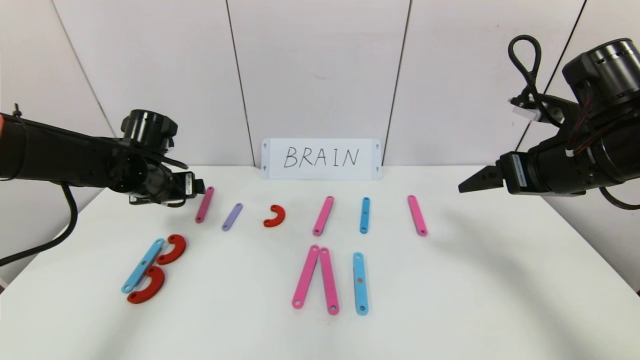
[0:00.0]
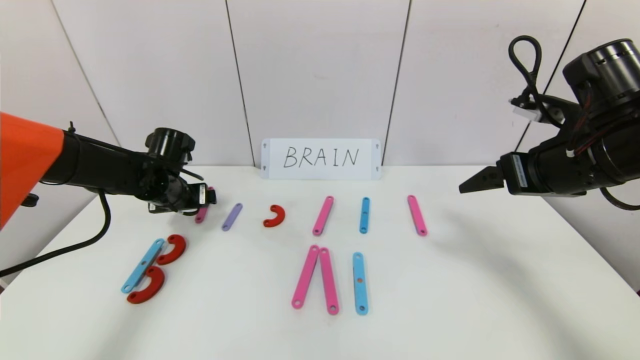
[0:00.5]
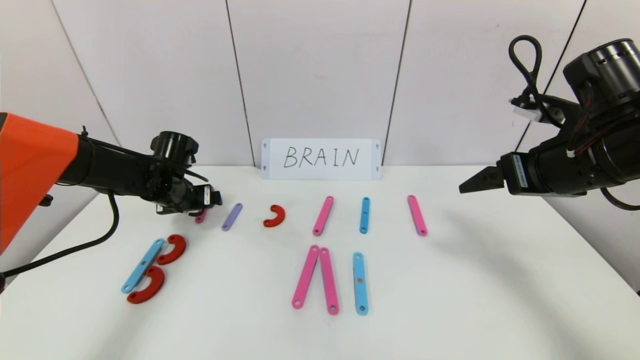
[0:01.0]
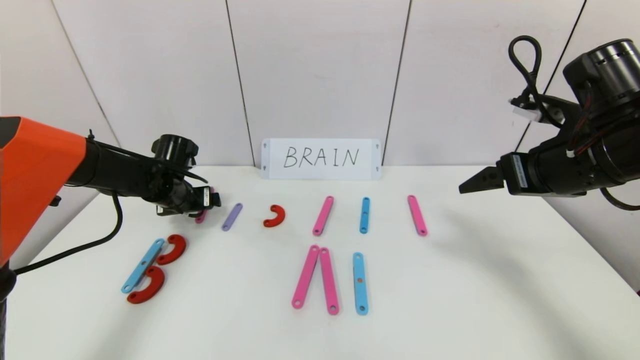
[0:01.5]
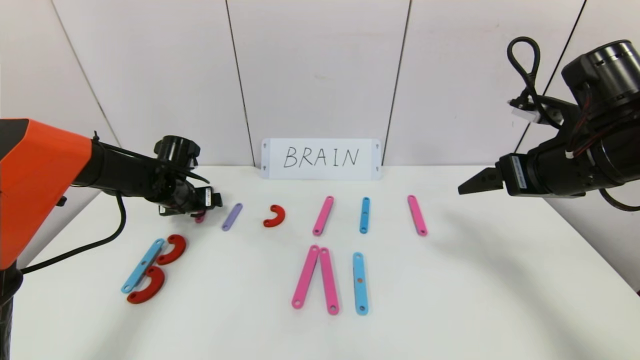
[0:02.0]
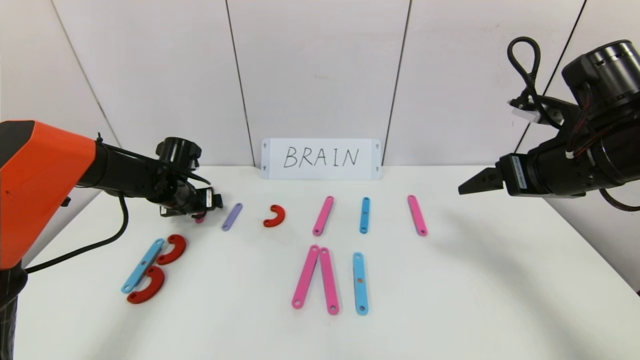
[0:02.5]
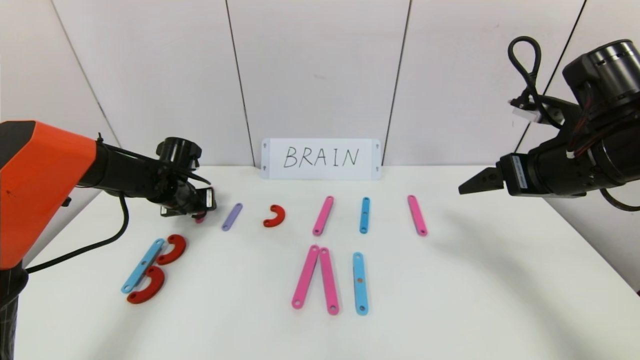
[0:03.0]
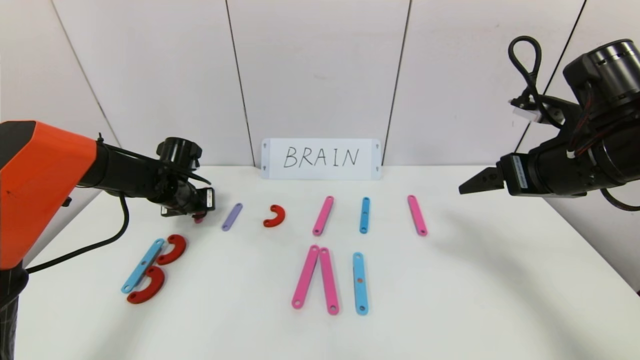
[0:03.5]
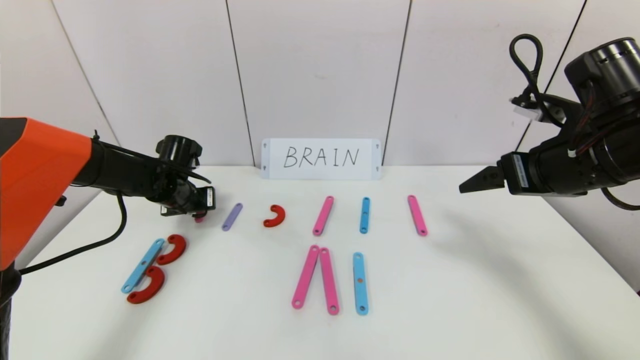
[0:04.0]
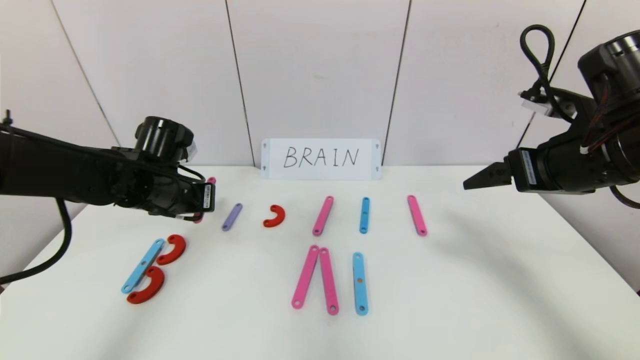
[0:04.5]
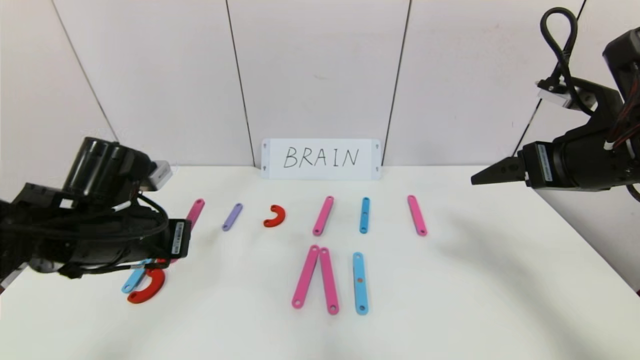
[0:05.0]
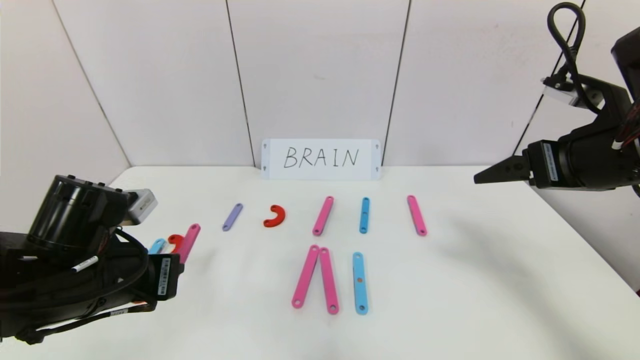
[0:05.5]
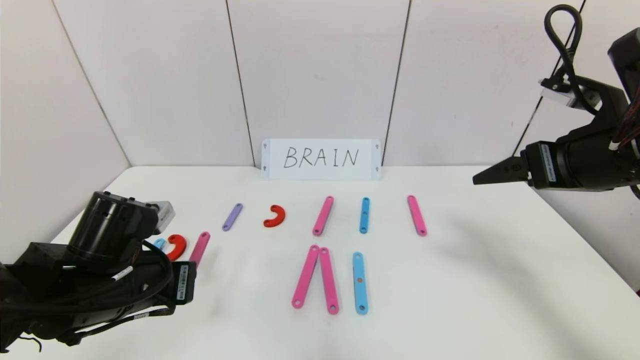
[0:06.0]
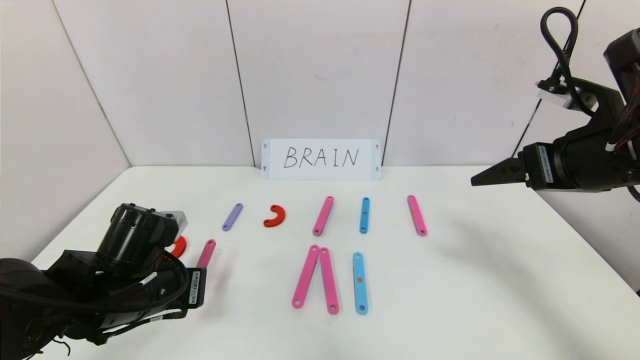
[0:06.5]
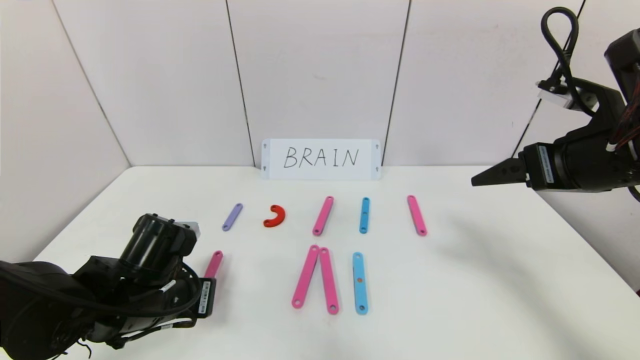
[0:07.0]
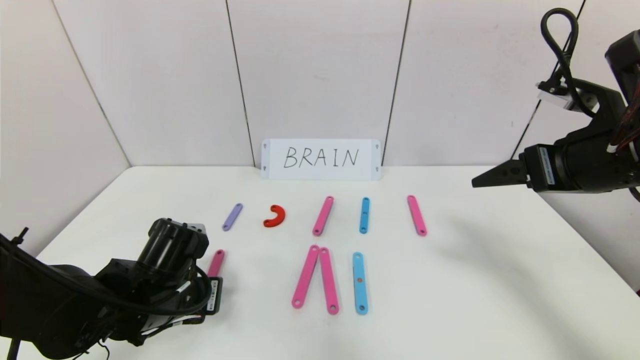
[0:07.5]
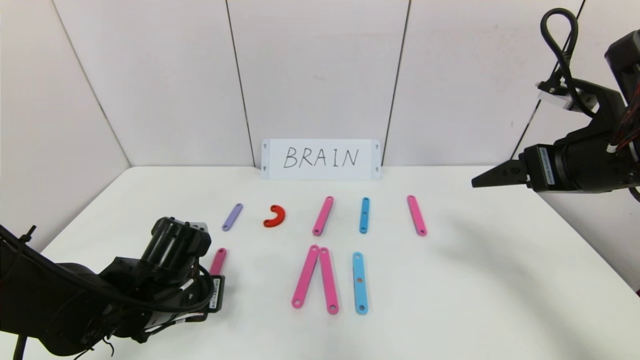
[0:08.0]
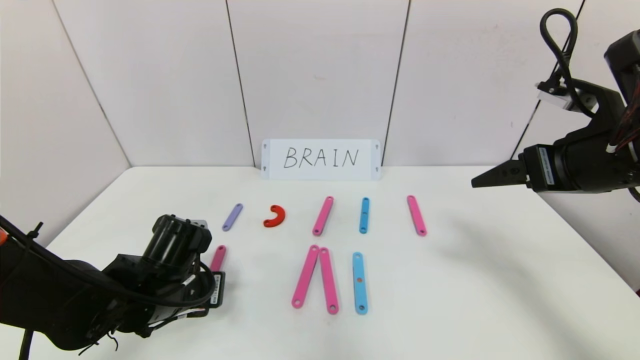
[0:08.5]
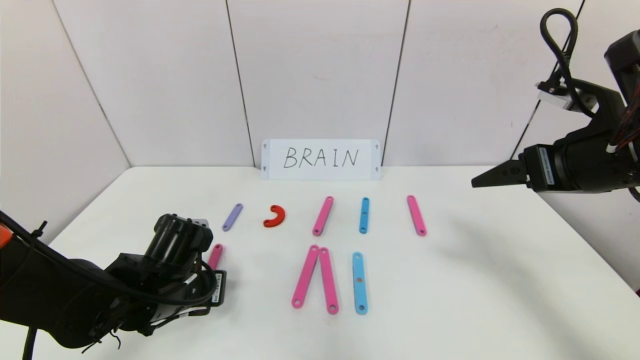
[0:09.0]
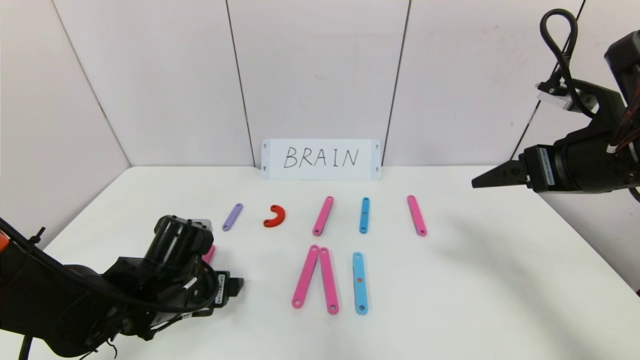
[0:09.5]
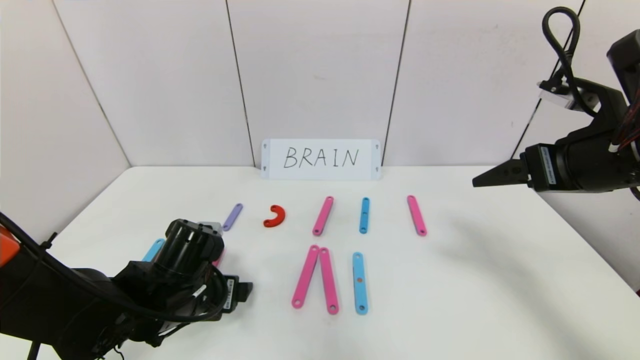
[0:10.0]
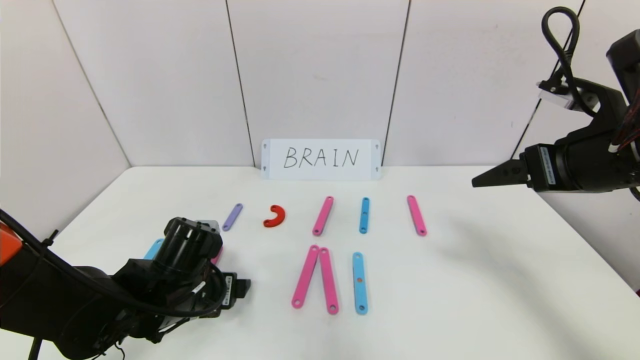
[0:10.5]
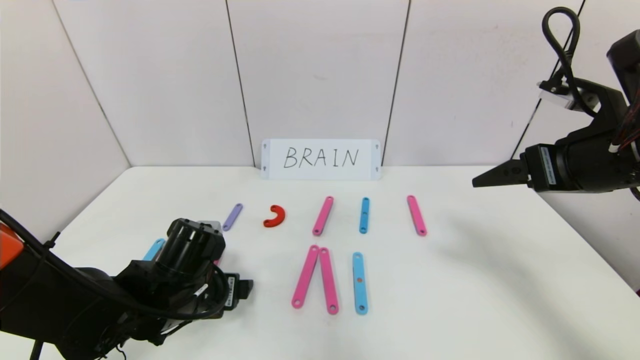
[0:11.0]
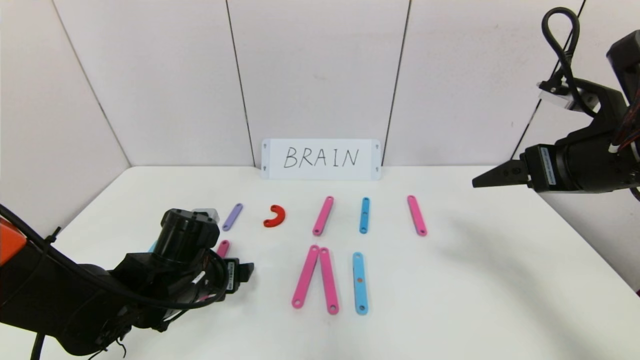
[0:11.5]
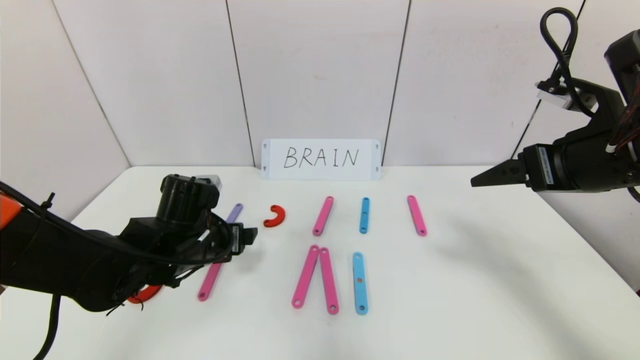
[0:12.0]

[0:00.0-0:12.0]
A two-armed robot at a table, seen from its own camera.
Task of the whole recording: rearrange the word baai as brain.
0:00.0 to 0:02.0: The left gripper is displaced downward and forward by about 10 cm.
0:02.0 to 0:04.0: The left gripper closes its fingers.
0:04.0 to 0:06.0: The left gripper goes roughly 20 cm backward.
0:06.0 to 0:08.0: The left gripper goes some 5 cm downward.
0:08.0 to 0:10.0: The left gripper opens its fingers.
0:10.0 to 0:12.0: The left gripper travels forward by about 5 cm.

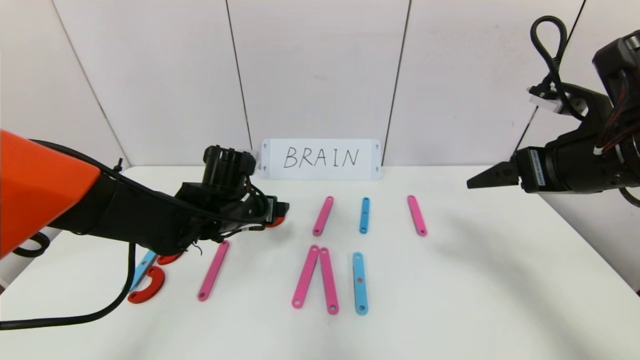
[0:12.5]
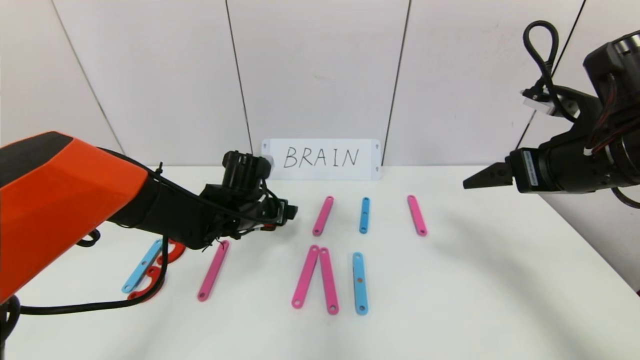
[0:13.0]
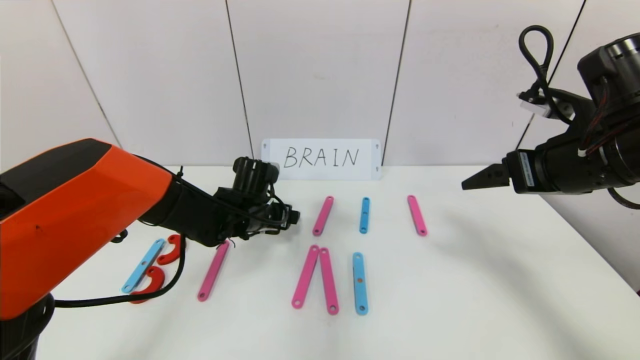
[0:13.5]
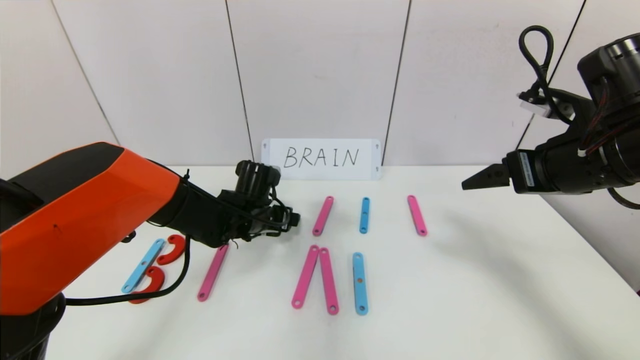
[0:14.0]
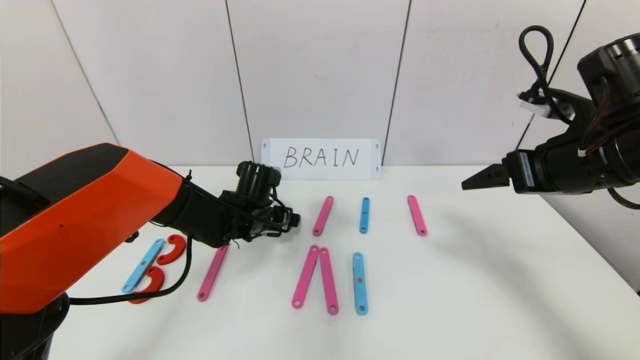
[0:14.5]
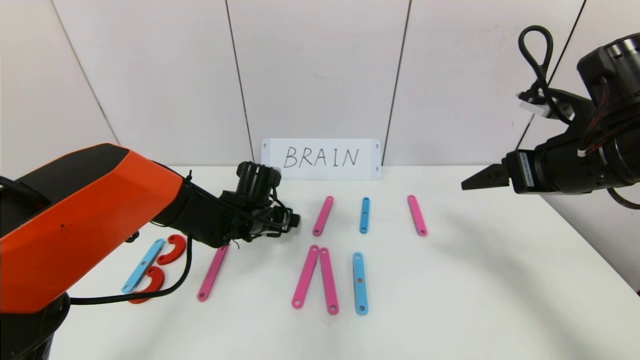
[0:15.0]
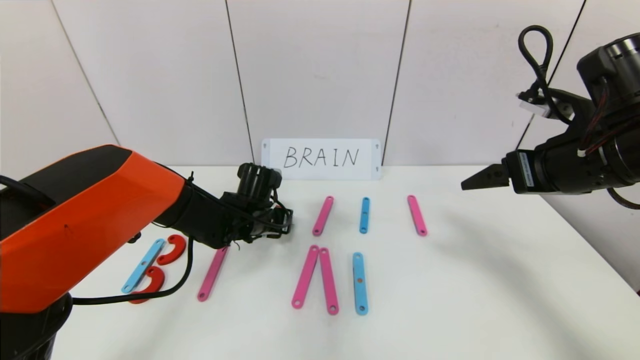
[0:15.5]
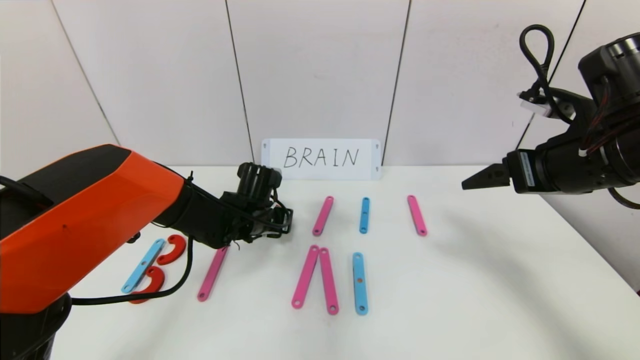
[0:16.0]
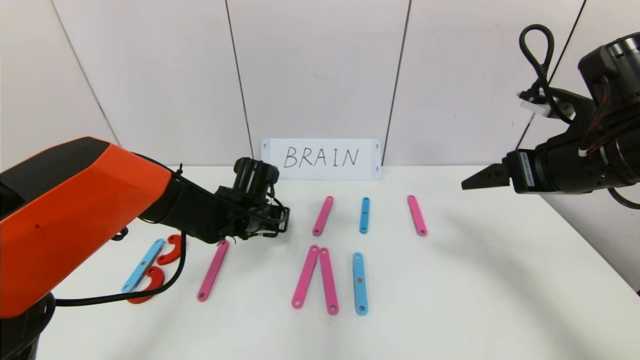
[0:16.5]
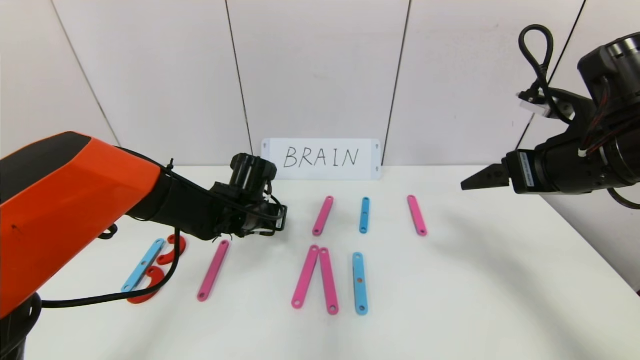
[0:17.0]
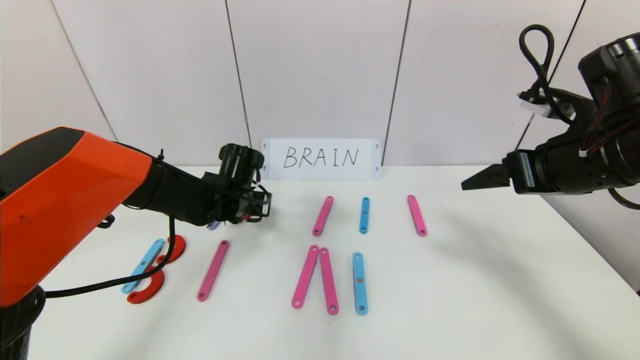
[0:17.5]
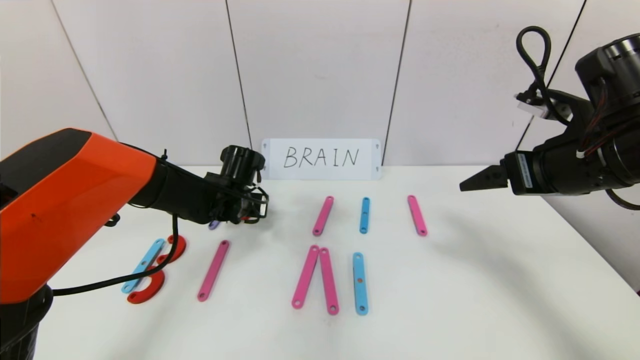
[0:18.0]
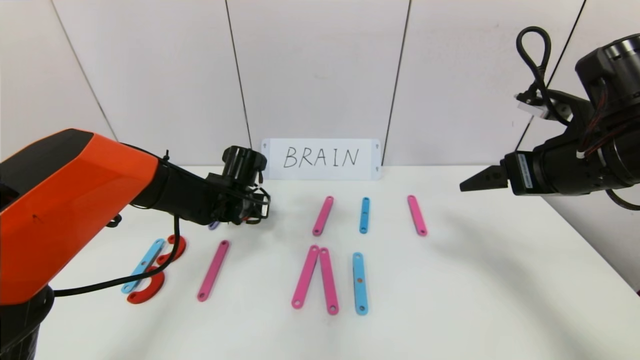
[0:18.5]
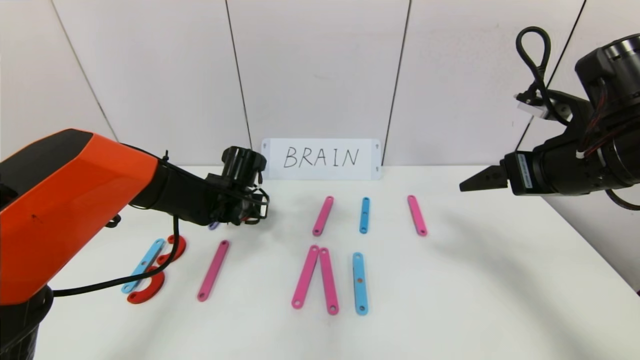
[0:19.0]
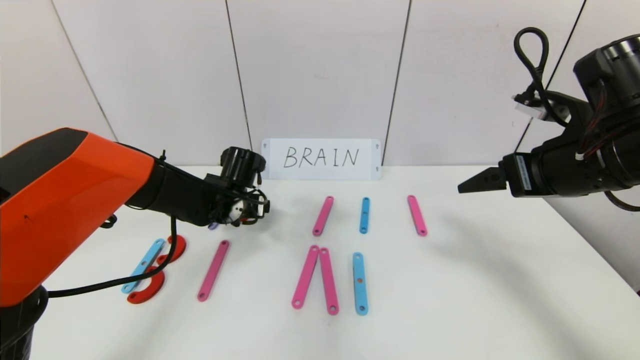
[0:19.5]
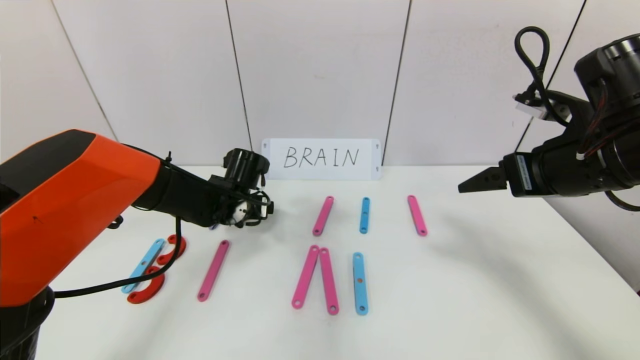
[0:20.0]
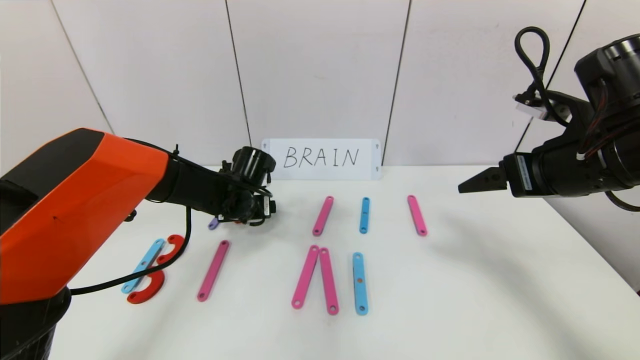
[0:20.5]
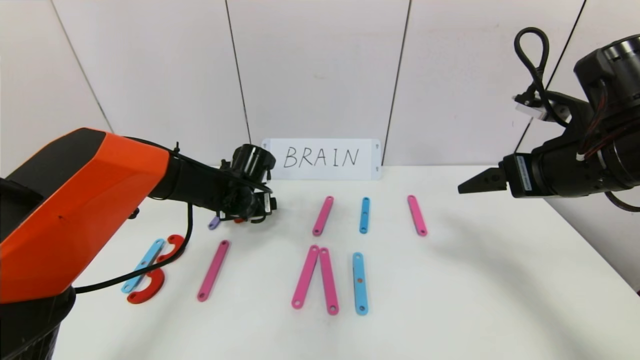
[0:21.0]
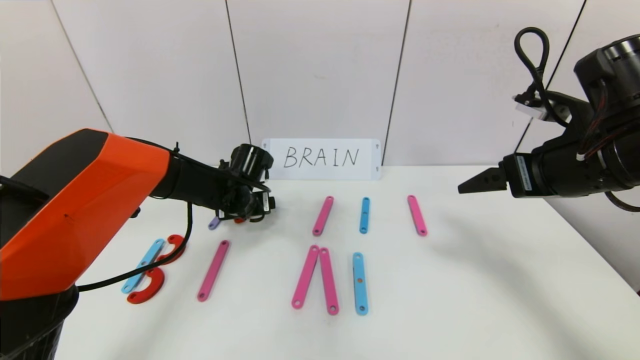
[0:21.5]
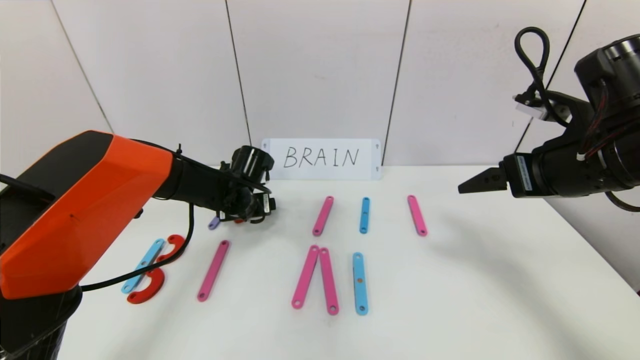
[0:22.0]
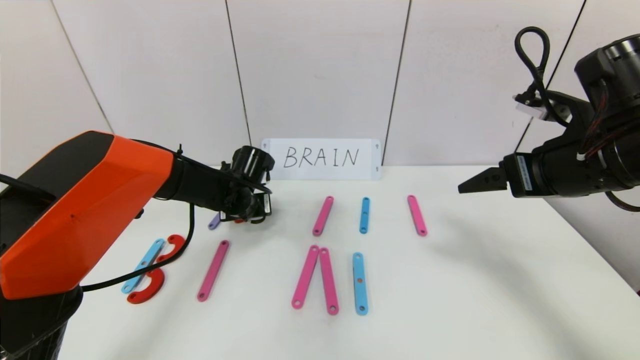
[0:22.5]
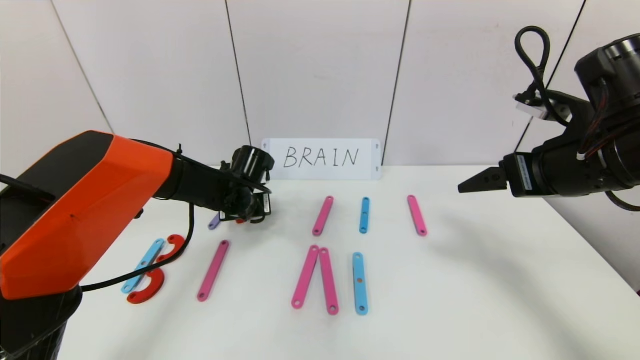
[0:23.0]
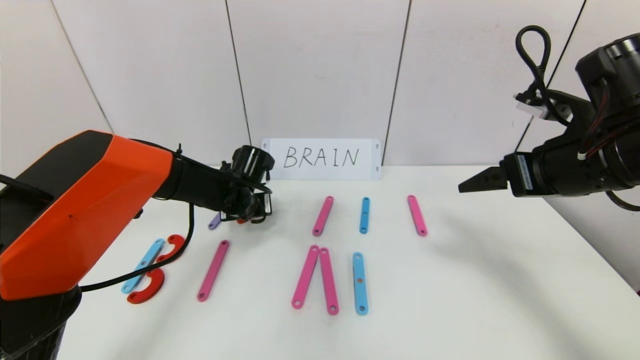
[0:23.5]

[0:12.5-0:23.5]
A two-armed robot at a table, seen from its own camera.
Task of the whole recording: rearrange the word baai as brain.
0:12.5 to 0:14.5: The left gripper ends up roughly 5 cm from where it was.
0:14.5 to 0:16.0: The left gripper closes up.
0:16.0 to 0:18.0: The grippers stay close to where they were, moving slightly.
0:18.0 to 0:20.0: The left gripper opens up.
0:20.0 to 0:21.5: The grippers move only a little.
0:21.5 to 0:23.5: The left gripper closes up.
